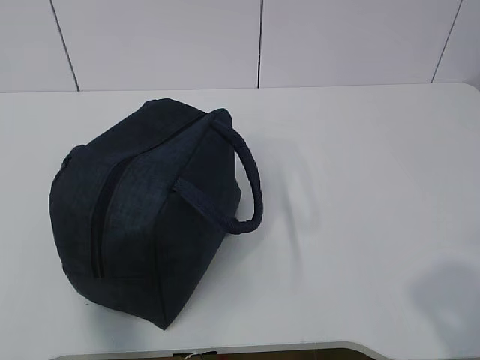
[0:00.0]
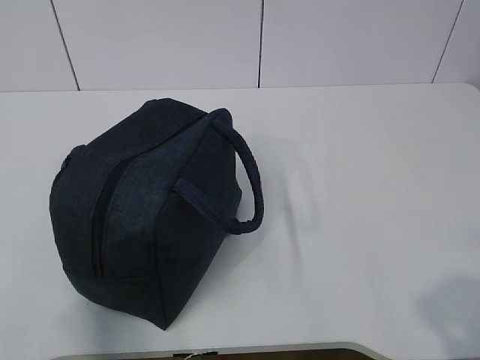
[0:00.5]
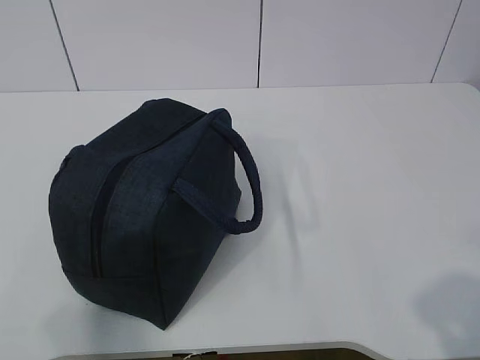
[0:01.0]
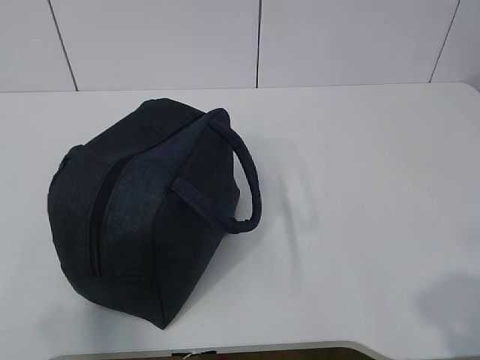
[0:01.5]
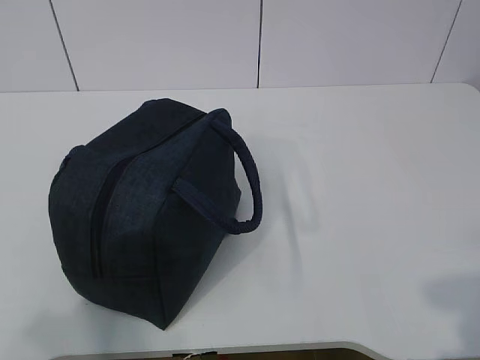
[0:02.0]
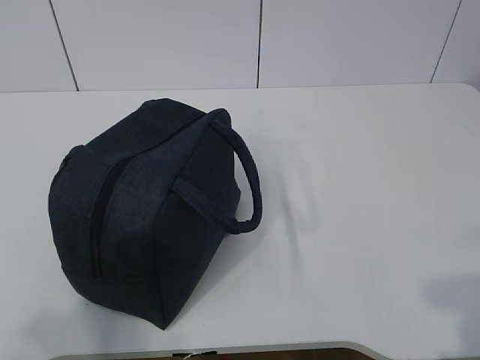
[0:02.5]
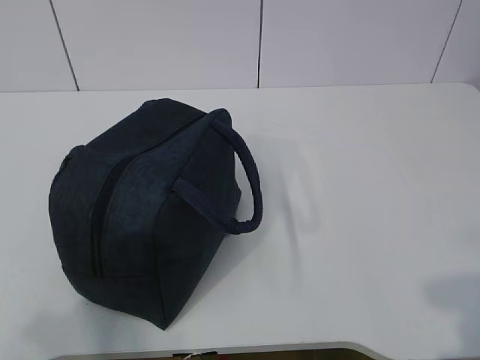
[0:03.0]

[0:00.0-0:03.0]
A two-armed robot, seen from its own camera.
0:00.0 to 0:01.5: The left gripper travels downward and forward by roughly 10 cm.
0:01.5 to 0:03.0: The grippers stay close to where they were, moving slightly.

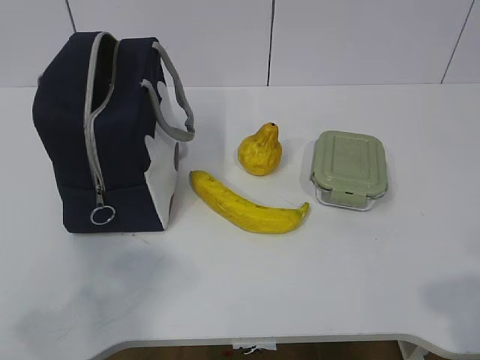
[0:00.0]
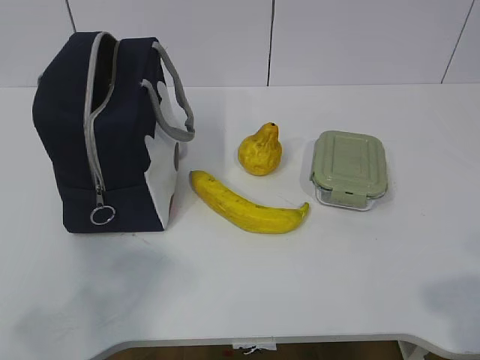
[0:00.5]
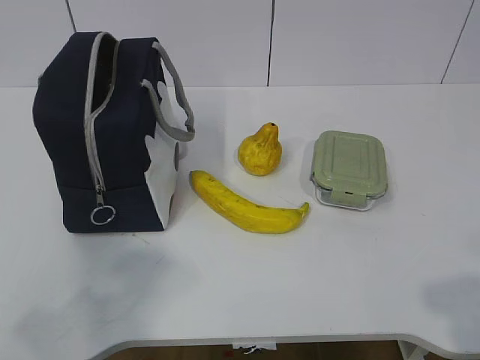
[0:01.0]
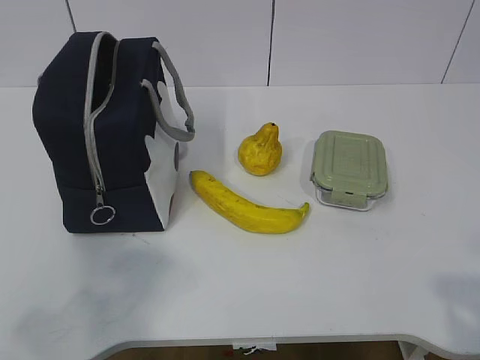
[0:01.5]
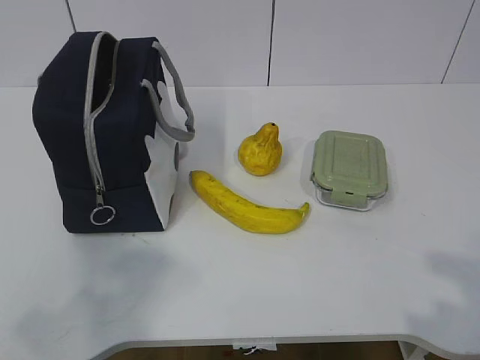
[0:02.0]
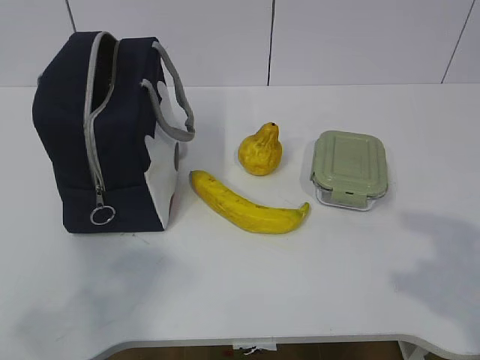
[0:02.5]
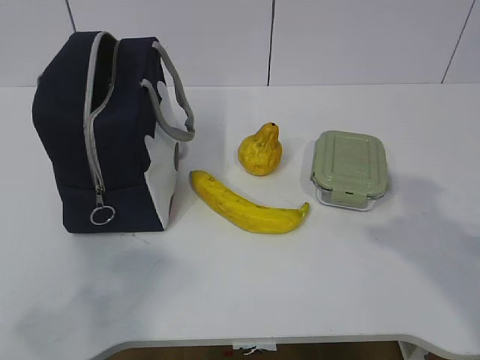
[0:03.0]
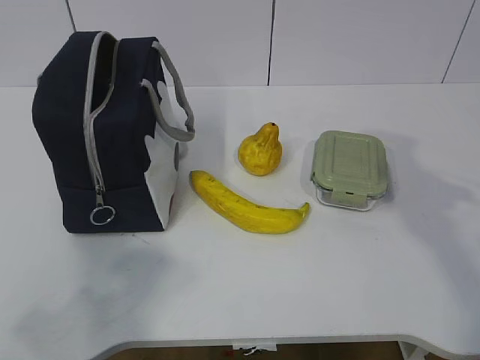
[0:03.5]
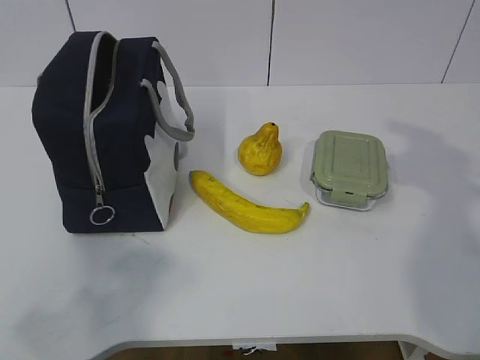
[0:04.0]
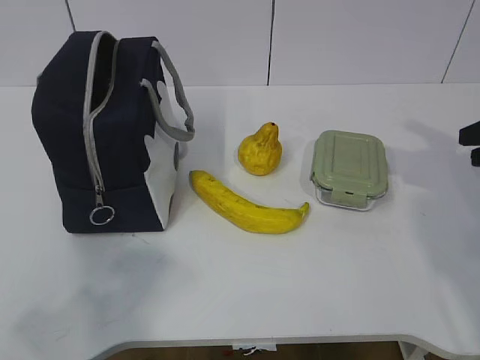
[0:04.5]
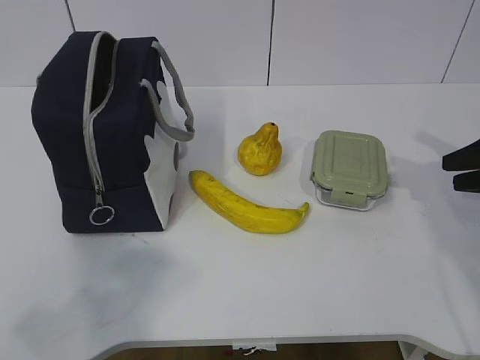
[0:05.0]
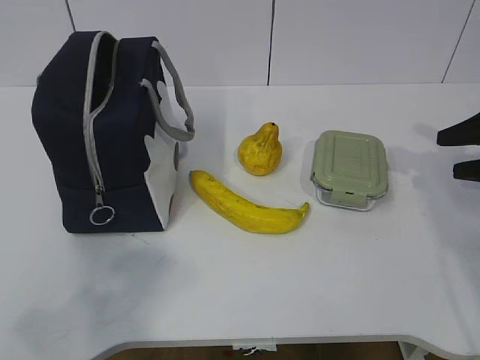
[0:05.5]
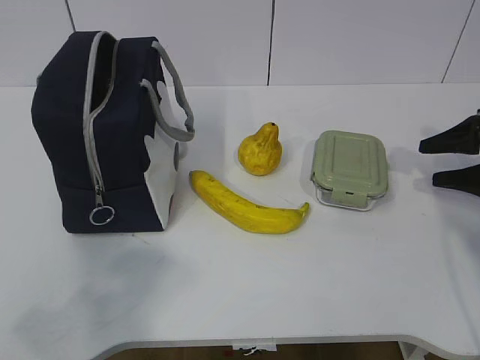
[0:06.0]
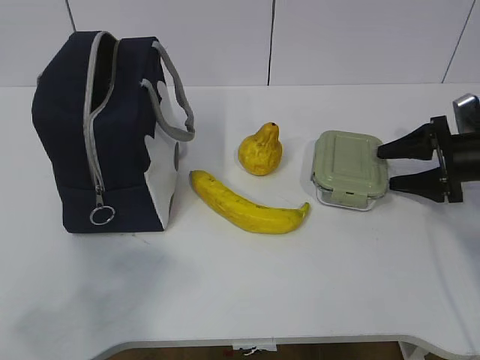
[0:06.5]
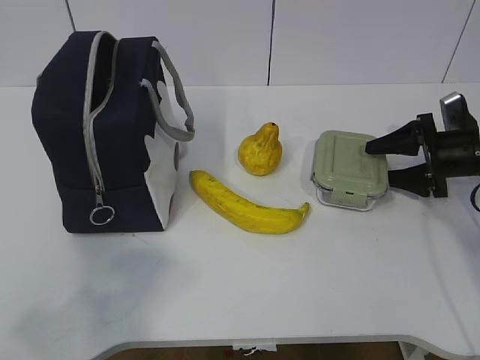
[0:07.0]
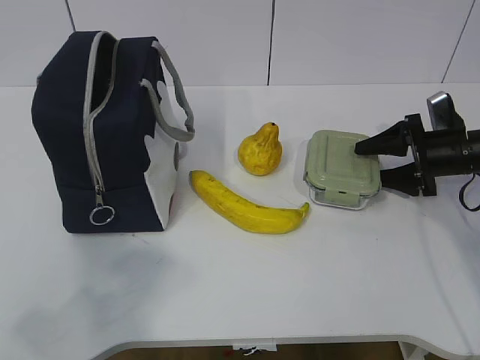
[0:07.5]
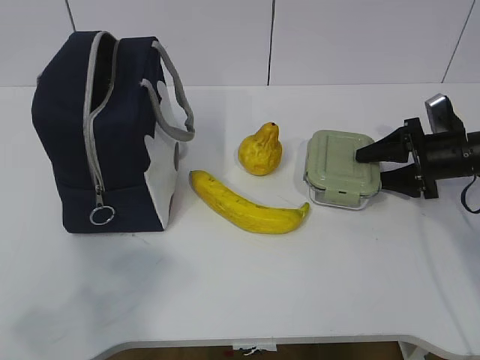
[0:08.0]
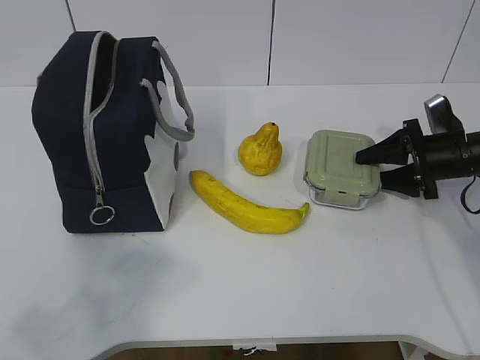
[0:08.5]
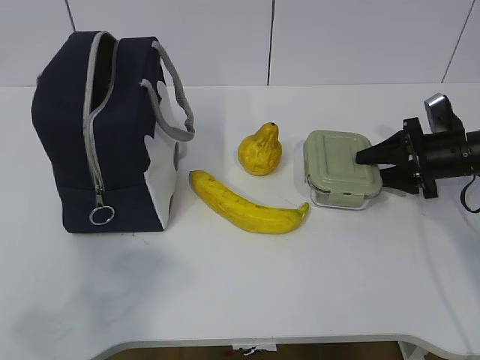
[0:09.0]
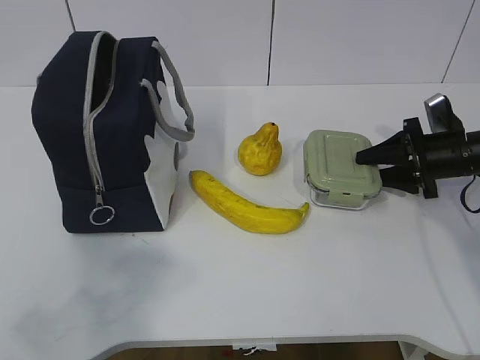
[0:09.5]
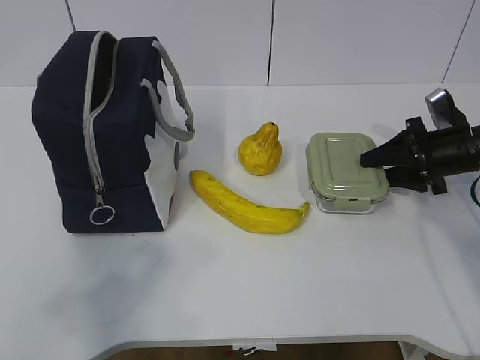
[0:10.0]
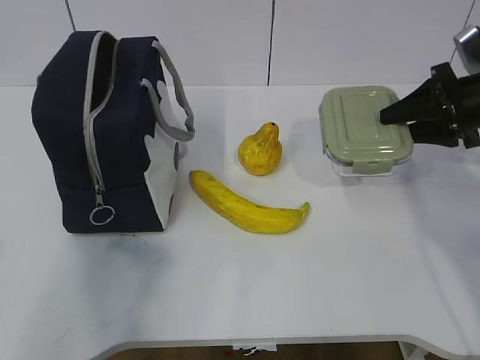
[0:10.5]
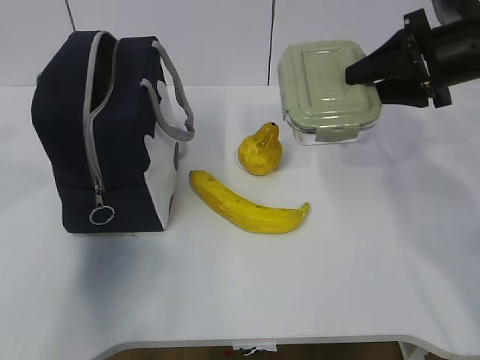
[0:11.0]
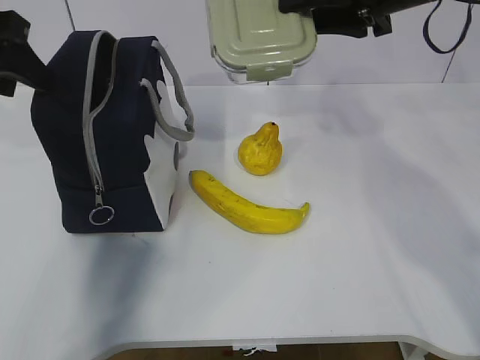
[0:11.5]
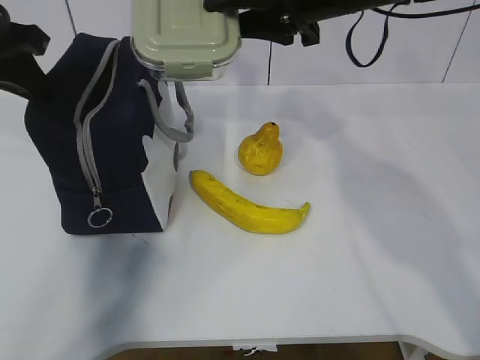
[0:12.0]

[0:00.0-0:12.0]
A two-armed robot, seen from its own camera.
Step, 0:00.0 to 0:08.0: Grab the lunch box with your right hand.
Step, 0:08.5 to 0:10.0: Grab the lunch bag with your left hand.
0:02.0 to 0:04.0: The right gripper is displaced forward by some 25 cm.
0:04.0 to 0:06.0: The right gripper travels downward, forward and to the right by roughly 20 cm, and opens up.
0:06.0 to 0:08.0: The right gripper goes some 5 cm to the left.
0:08.0 to 0:10.0: The grippers make only small movements.
0:10.0 to 0:12.0: The left gripper is displaced forward by approximately 35 cm, and closes up. The right gripper travels to the left and upward by approximately 30 cm.

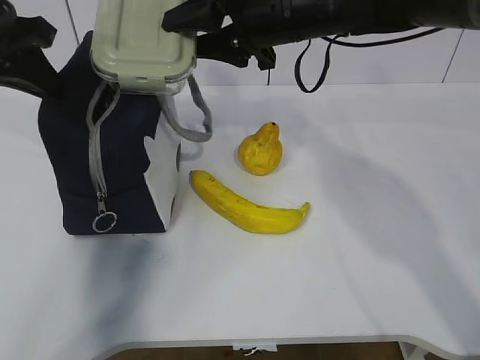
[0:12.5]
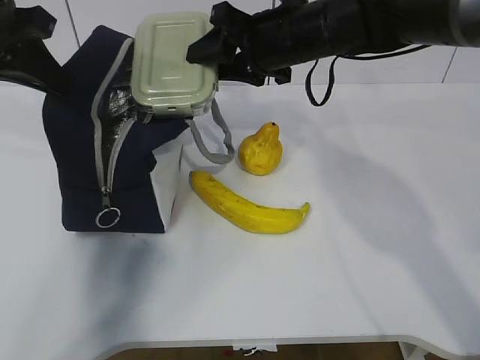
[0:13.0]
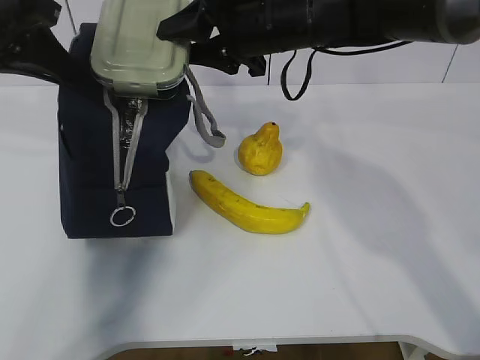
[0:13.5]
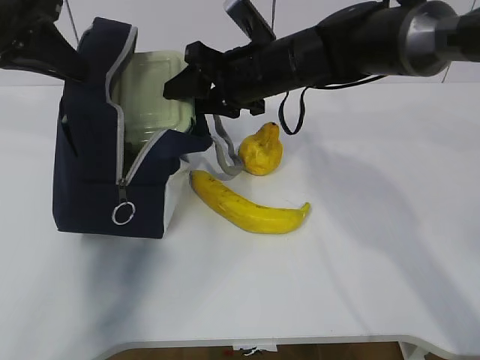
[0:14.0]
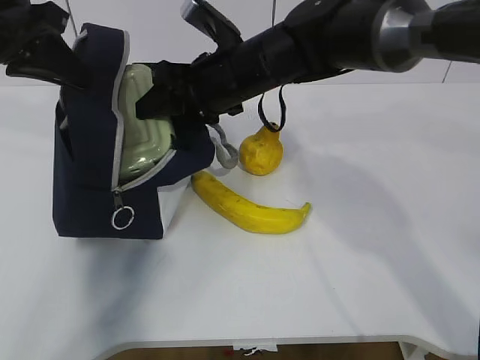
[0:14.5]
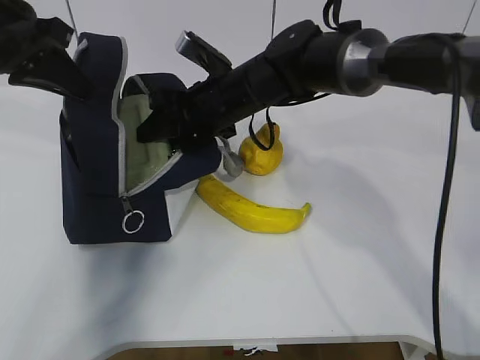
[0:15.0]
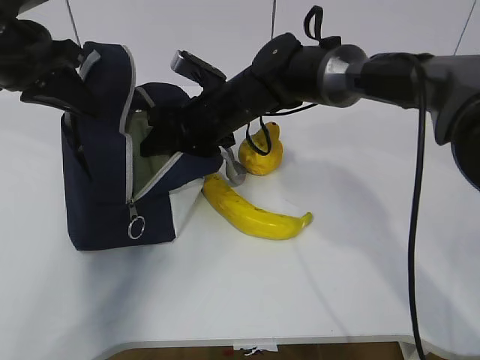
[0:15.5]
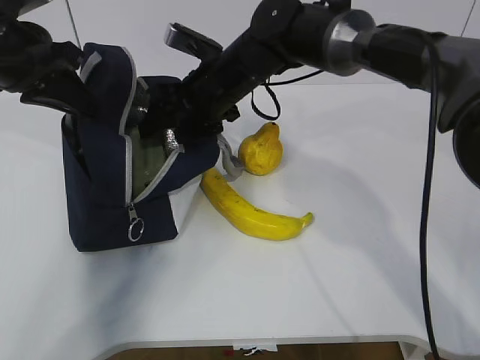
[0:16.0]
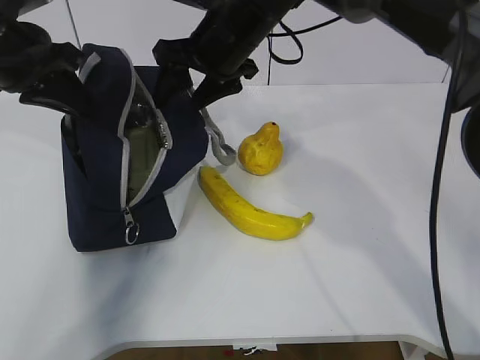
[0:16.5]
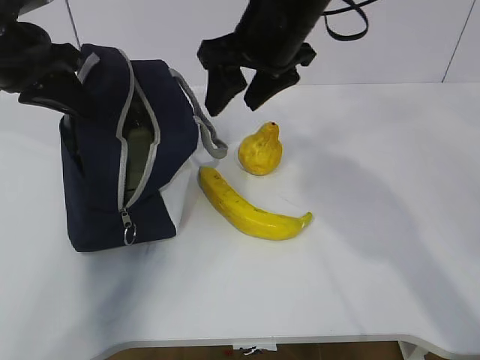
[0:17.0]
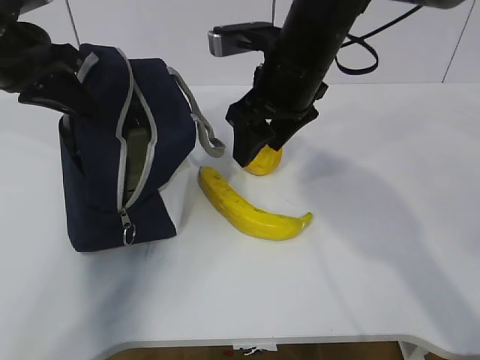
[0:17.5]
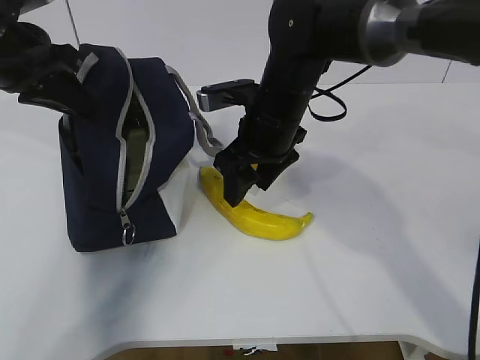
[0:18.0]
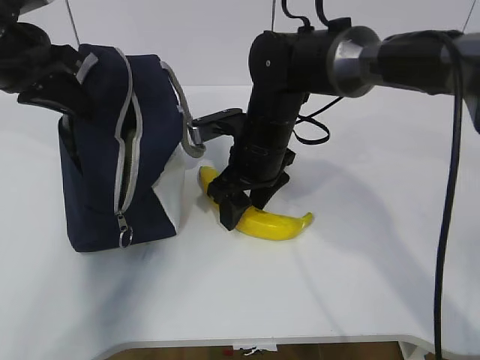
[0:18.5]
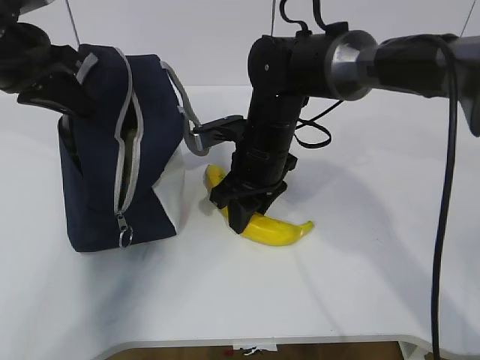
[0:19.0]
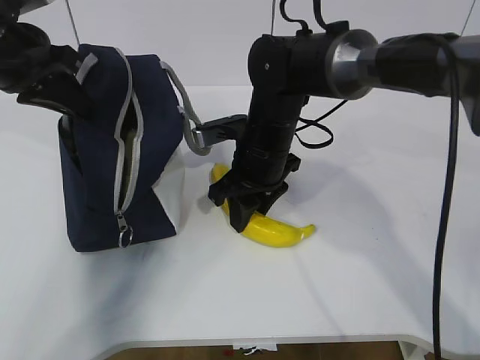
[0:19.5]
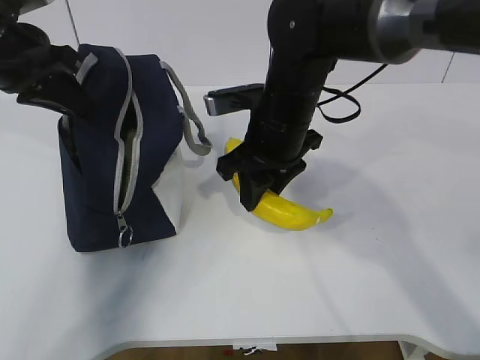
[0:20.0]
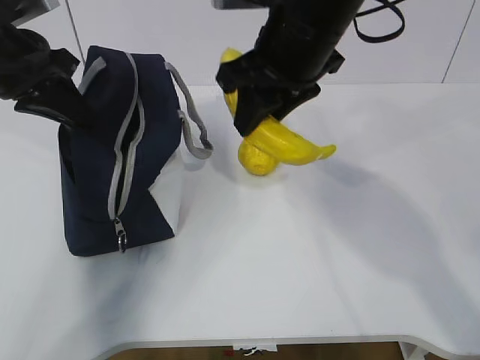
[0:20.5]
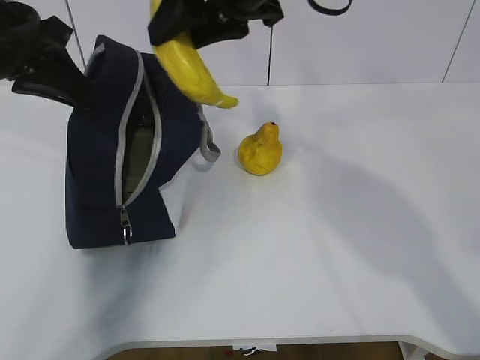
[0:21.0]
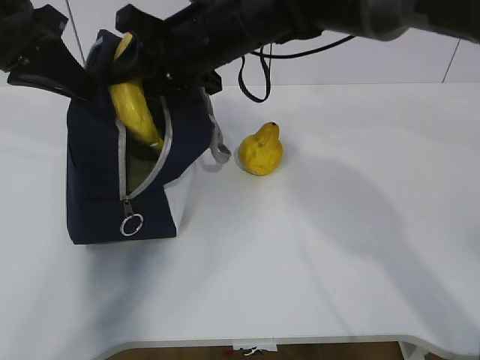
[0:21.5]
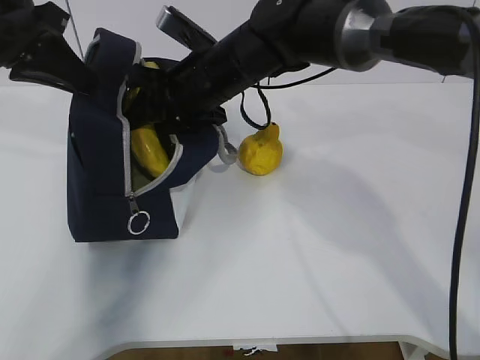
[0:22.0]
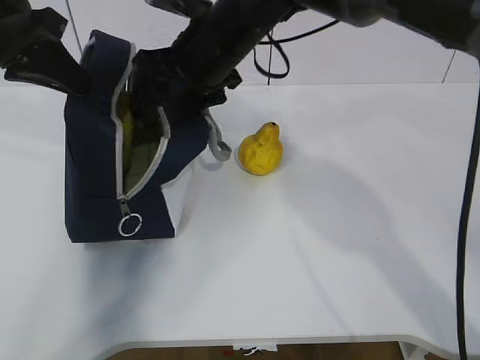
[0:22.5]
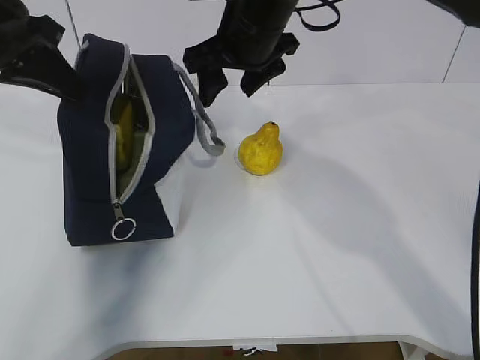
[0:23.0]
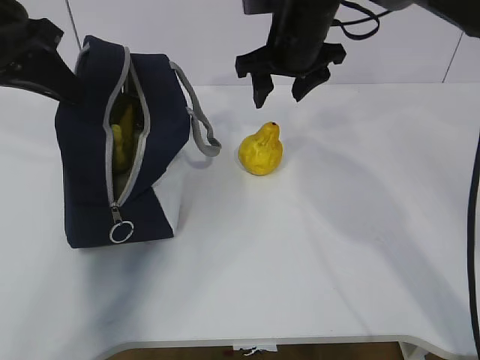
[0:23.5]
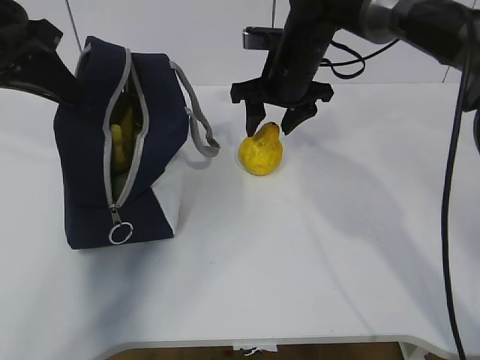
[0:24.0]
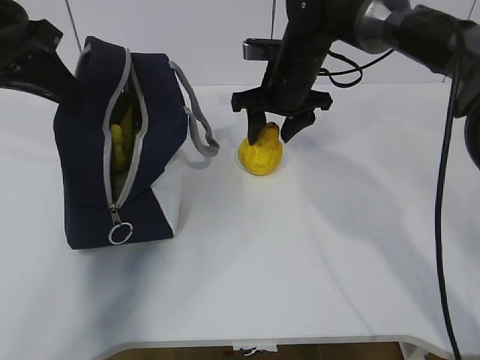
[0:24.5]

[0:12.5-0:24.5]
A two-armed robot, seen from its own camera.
Step, 0:13.5 to 0:16.0: Grab the banana with your right hand.
Step, 0:16.5 to 0:18.5: Place it into the bag with your right hand.
Step, 0:19.0 to 0:21.0: Grab the pear with your right hand.
Step, 0:23.0 to 0:24.0: Grab the lunch bag with your right hand.
0:12.5 to 0:14.5: The right gripper travels downward by roughly 5 cm.
0:16.5 to 0:18.5: The right gripper is displaced downward by roughly 10 cm.
0:18.5 to 0:20.5: The right gripper heads upward, covering about 15 cm, and closes up.
0:20.5 to 0:22.5: The right gripper goes up and down, roughly 15 cm each way, reversing 2 times, and opens its fingers.
0:22.5 to 0:24.5: The right gripper heads to the right, downward and forward, covering approximately 15 cm.
